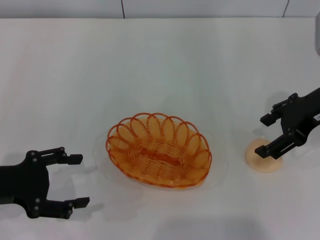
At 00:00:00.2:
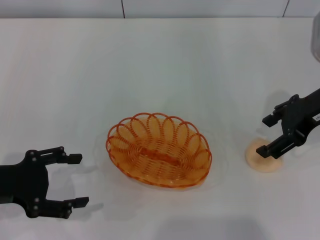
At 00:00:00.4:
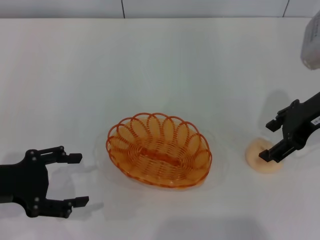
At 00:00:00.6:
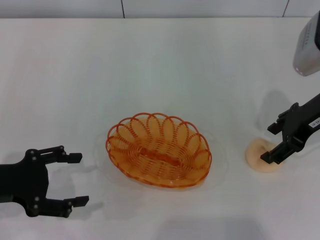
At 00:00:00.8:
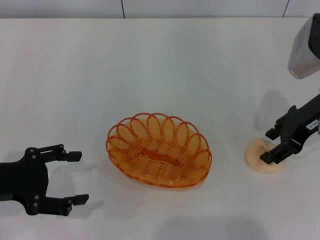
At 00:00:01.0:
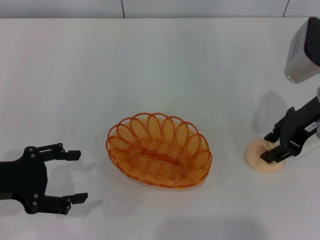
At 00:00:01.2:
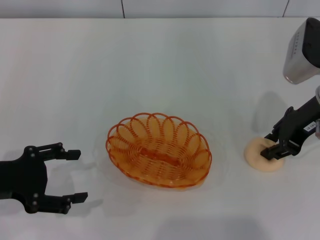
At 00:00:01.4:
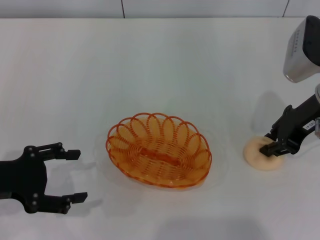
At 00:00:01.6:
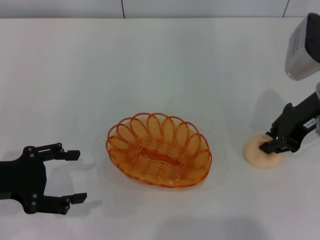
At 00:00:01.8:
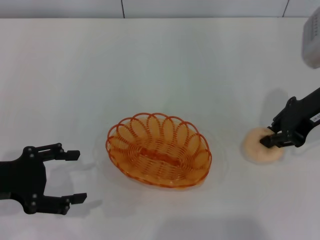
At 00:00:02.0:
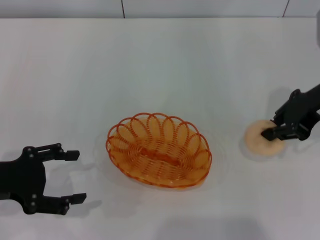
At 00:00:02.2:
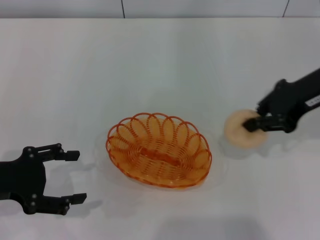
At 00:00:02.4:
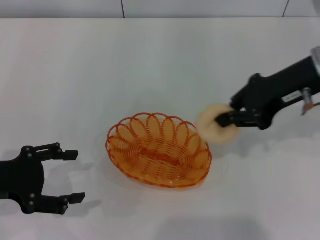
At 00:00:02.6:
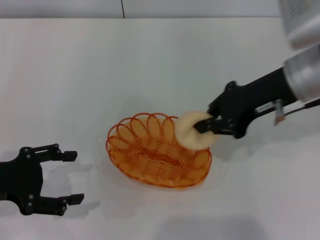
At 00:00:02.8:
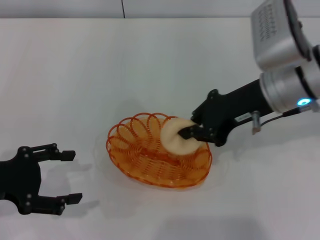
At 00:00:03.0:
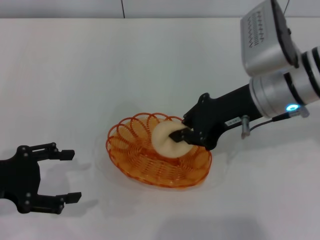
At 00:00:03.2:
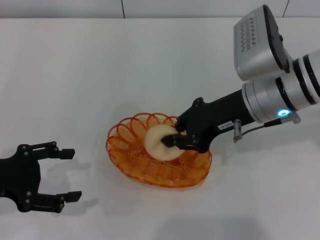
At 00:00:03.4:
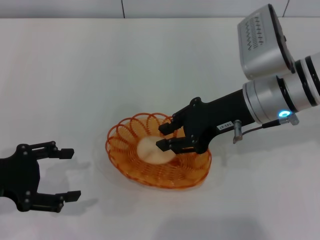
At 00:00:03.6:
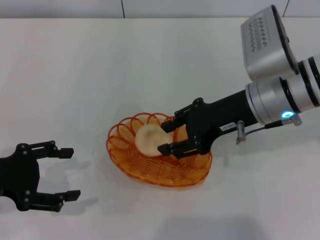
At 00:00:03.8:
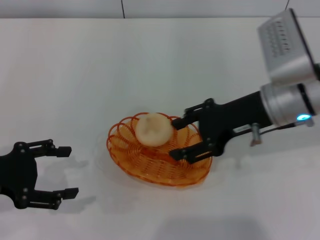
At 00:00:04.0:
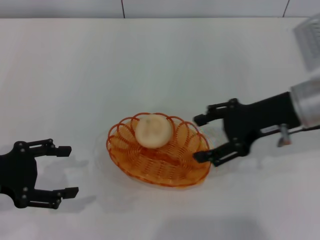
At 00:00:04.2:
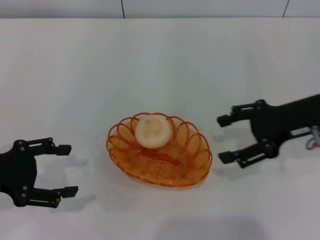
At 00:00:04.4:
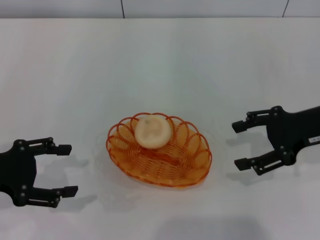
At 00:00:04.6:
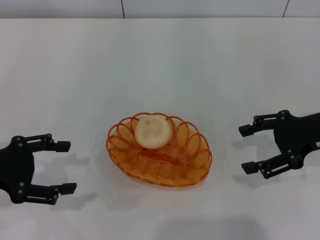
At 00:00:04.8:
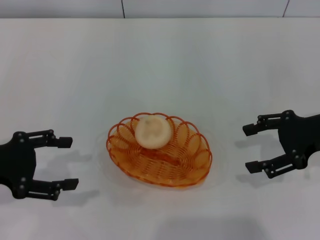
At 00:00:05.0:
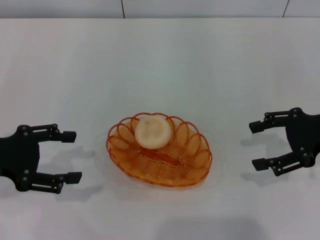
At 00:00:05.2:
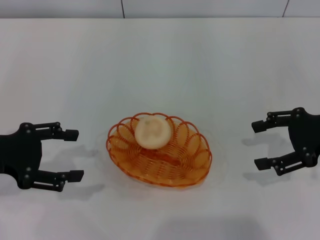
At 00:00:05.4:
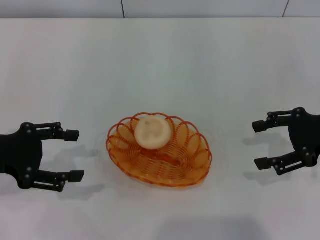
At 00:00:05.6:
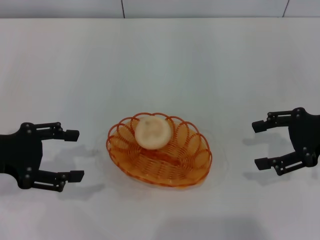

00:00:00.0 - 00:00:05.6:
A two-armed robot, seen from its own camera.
Step, 00:00:00.0 - 00:00:02.2: Pick up the egg yolk pastry with the right gripper.
Step, 00:00:02.4 - 00:00:04.0: Place the egg yolk pastry into the basket with the right gripper.
00:00:00.0 - 00:00:01.4: The right gripper closes its fingers.
00:00:01.4 - 00:00:02.8: The right gripper is displaced to the left by some 5 cm, and closes its fingers.
00:00:02.8 - 00:00:04.2: The right gripper travels to the right by some 10 cm, and opens its fingers.
00:00:04.2 - 00:00:05.6: The right gripper moves to the right, roughly 5 cm.
